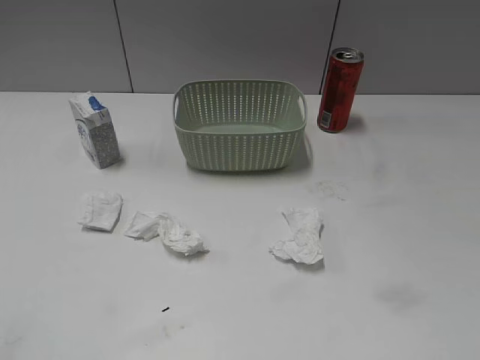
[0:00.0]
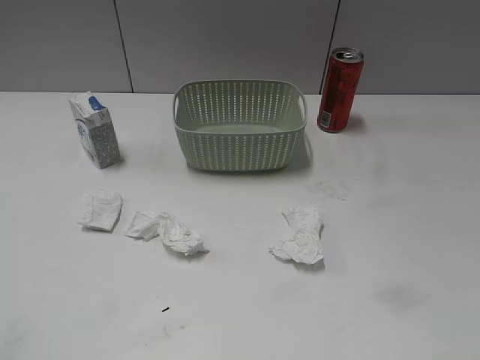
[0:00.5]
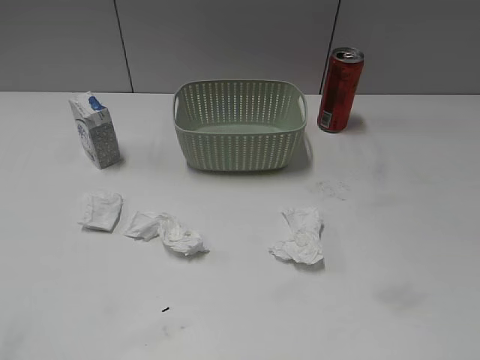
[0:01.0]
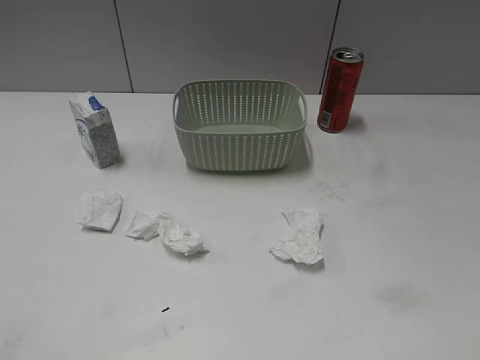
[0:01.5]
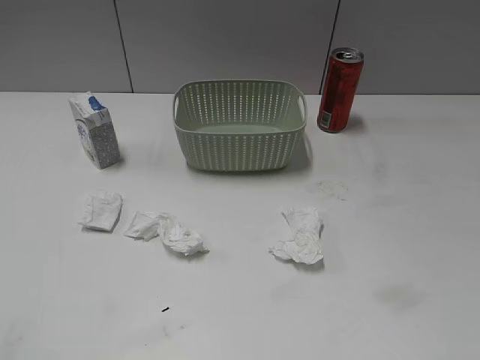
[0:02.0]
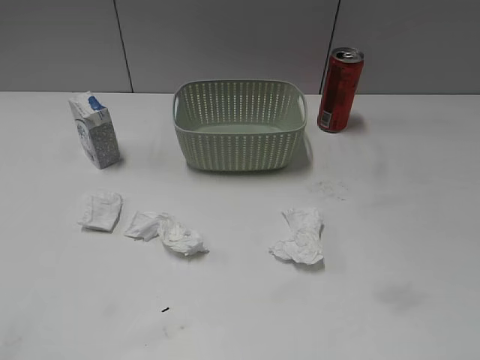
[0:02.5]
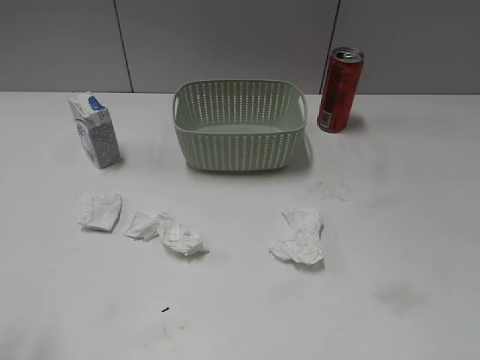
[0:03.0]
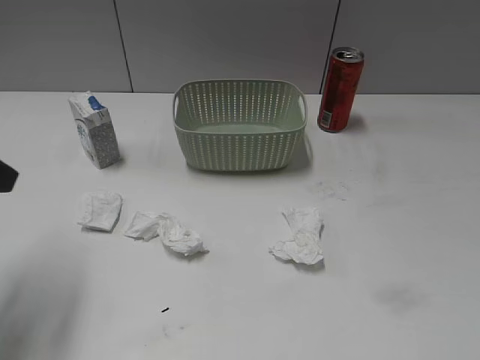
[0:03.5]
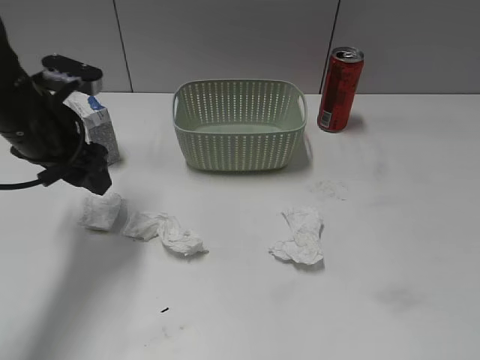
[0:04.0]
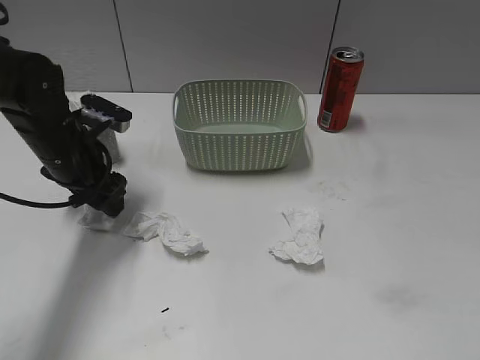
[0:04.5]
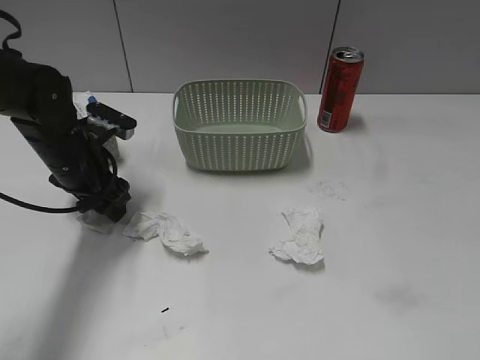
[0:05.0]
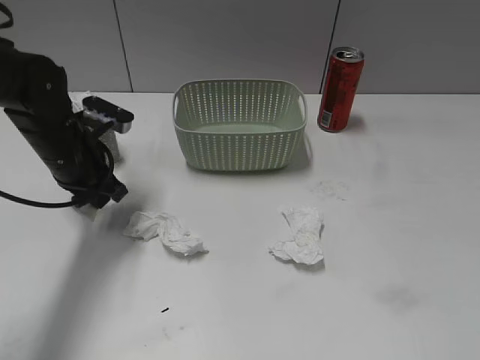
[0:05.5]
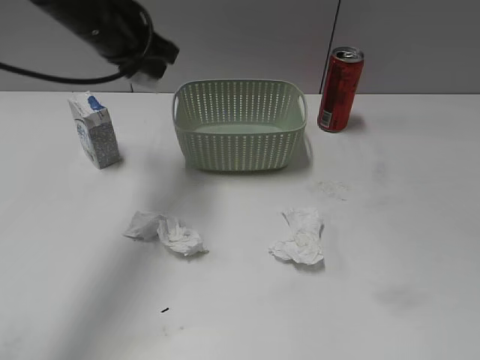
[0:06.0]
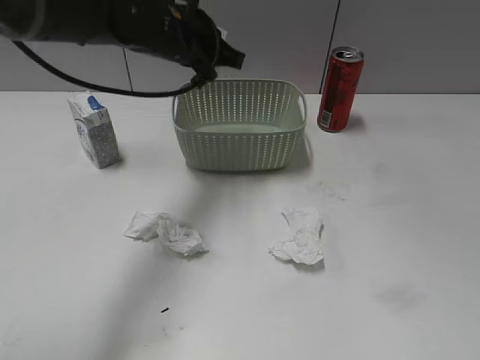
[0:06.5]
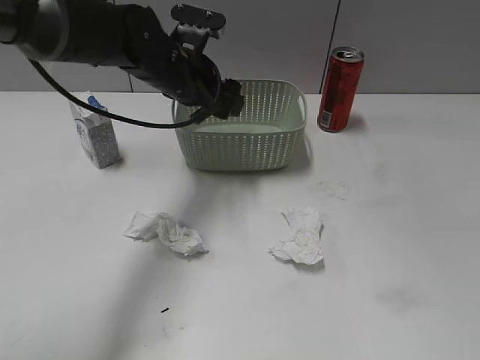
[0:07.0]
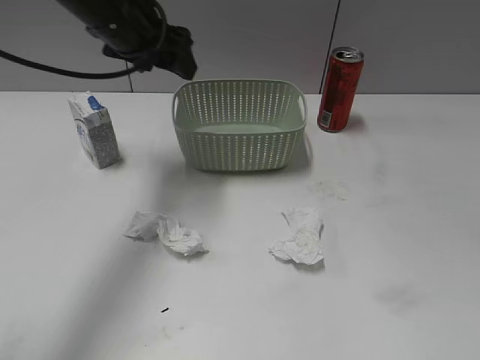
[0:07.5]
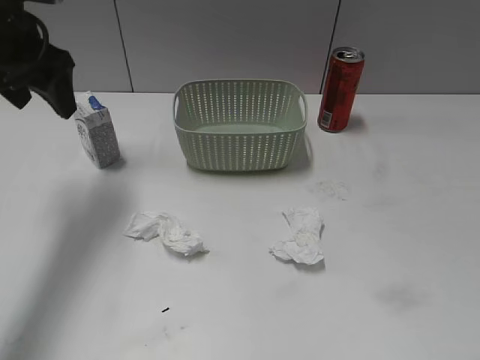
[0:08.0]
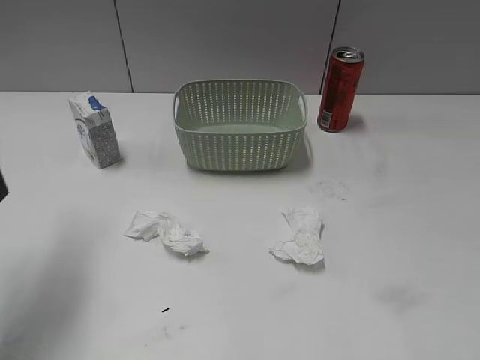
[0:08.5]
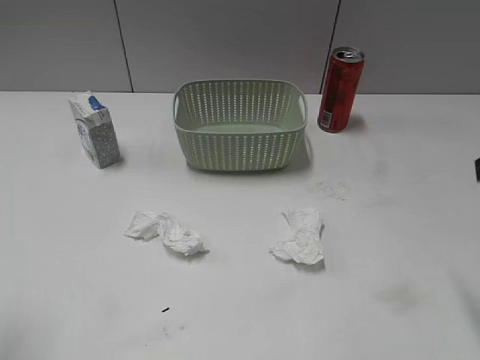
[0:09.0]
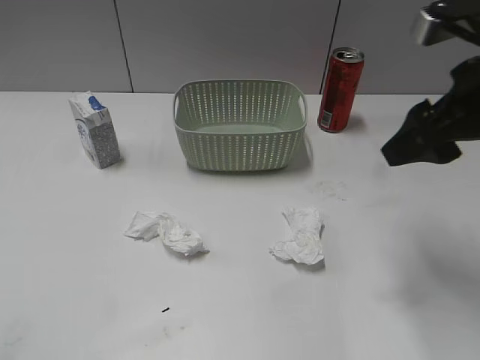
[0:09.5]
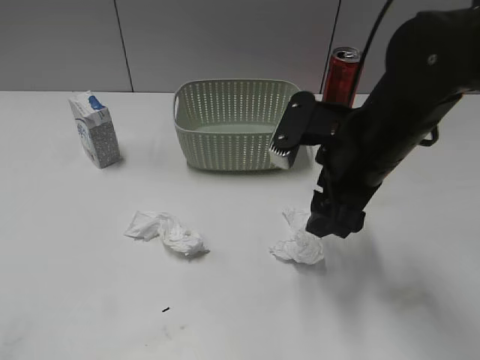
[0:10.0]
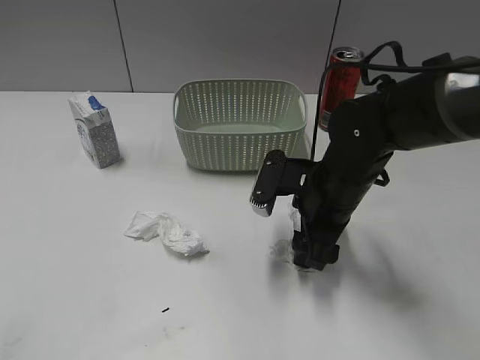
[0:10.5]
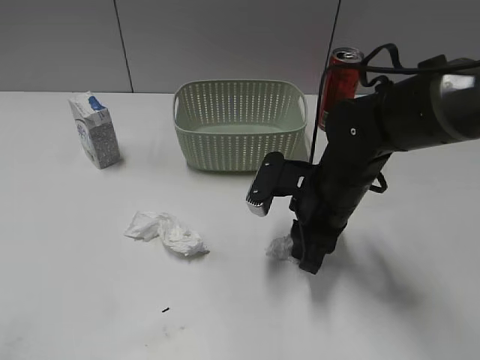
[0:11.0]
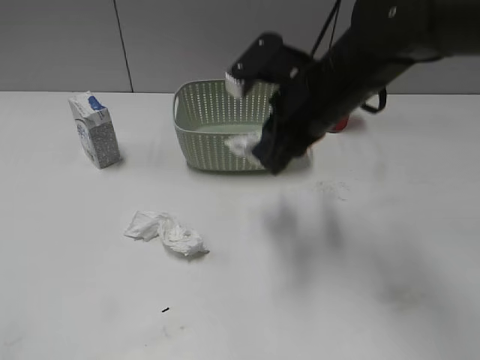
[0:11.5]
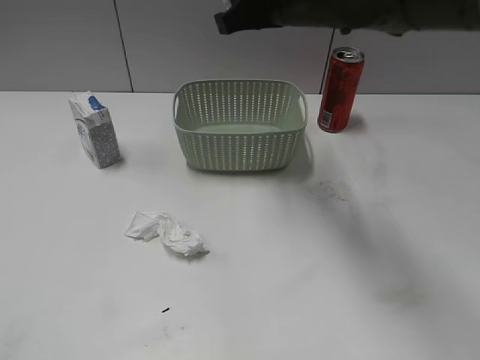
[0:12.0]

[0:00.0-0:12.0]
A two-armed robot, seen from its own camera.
Step, 0:03.5 to 0:05.0: Grasp the waste paper with left gripper.
Step, 0:05.5 to 0:07.0: Place the waste paper in the basket with left gripper.
Step, 0:07.5 to 0:11.0: Grasp the waste paper with right gripper.
0:02.0 to 0:04.0: The left gripper moves forward, approximately 30 cm.
0:04.0 to 0:06.0: The left gripper is displaced upward, to the right and forward by approximately 15 cm, and closes up.
0:06.0 to 0:08.0: The left gripper heads to the left, covering some 10 cm, and opens up.
0:08.0 to 0:10.0: The right gripper goes some 30 cm forward and to the left; the left gripper heads backward, covering about 35 cm.
0:10.0 to 0:12.0: The right gripper shifts roughly 15 cm forward, upward and to the left, and closes.

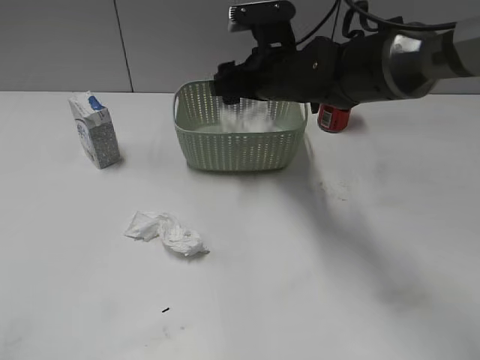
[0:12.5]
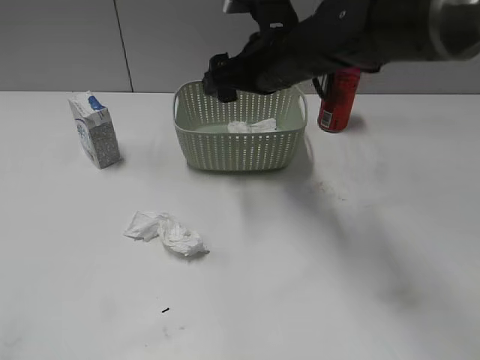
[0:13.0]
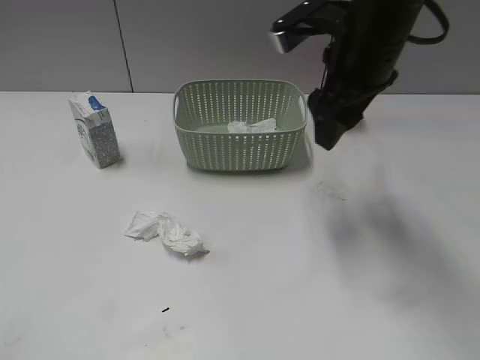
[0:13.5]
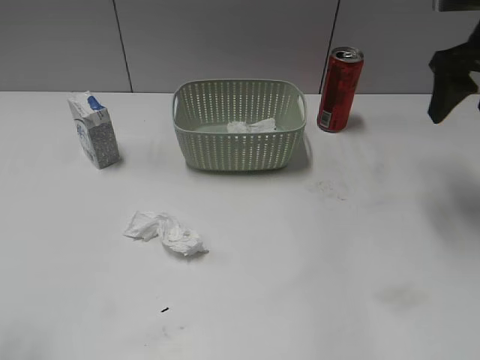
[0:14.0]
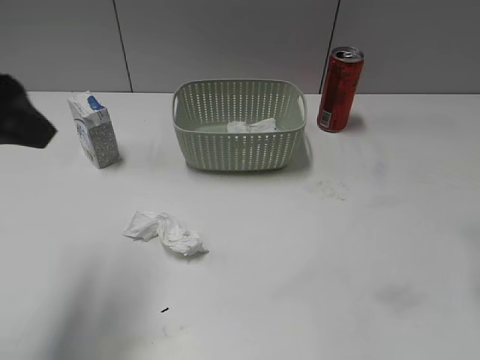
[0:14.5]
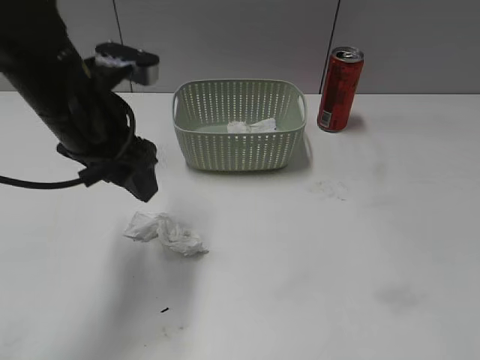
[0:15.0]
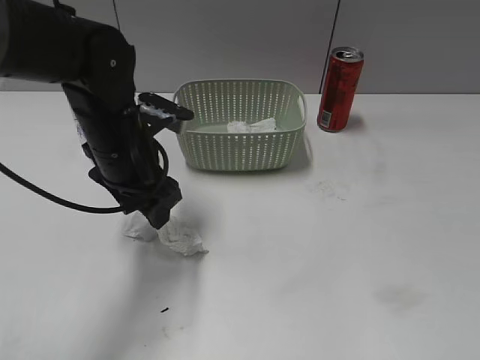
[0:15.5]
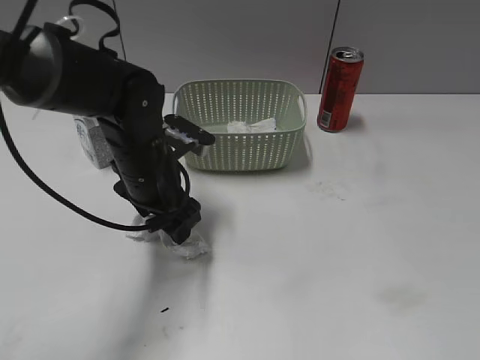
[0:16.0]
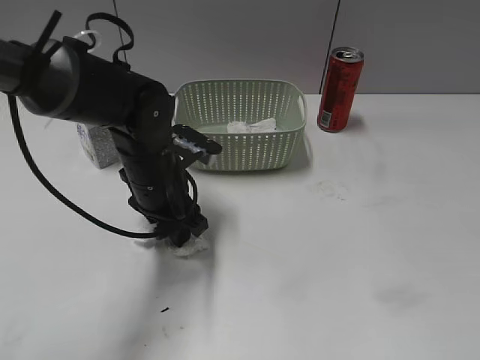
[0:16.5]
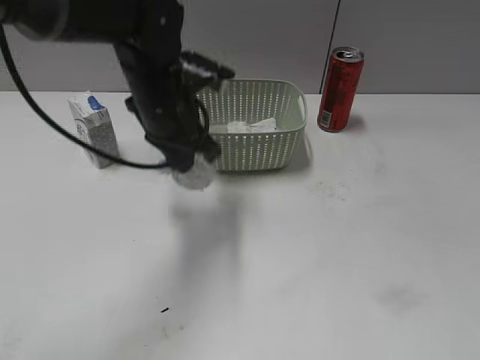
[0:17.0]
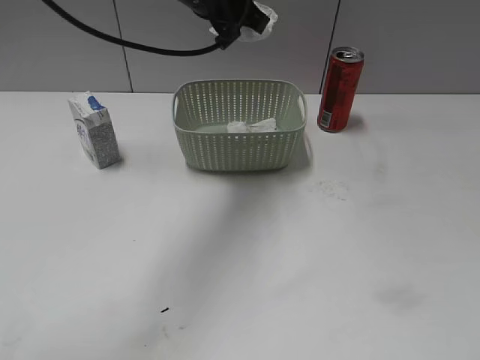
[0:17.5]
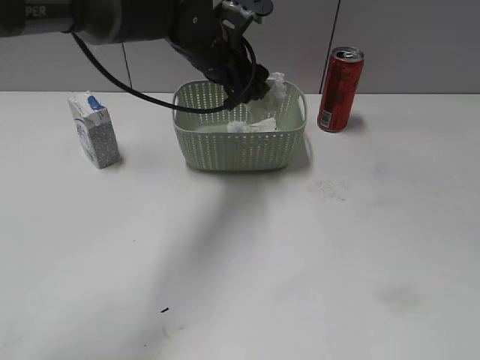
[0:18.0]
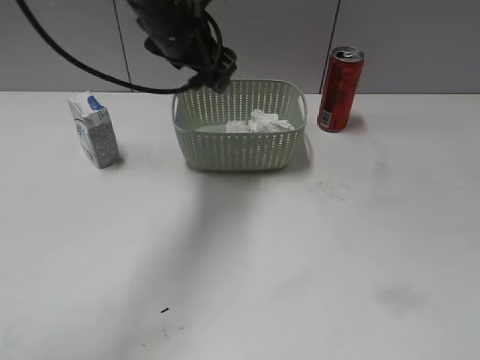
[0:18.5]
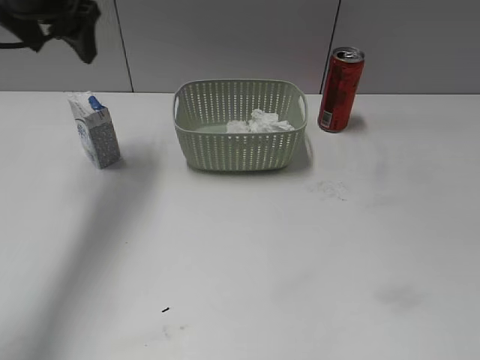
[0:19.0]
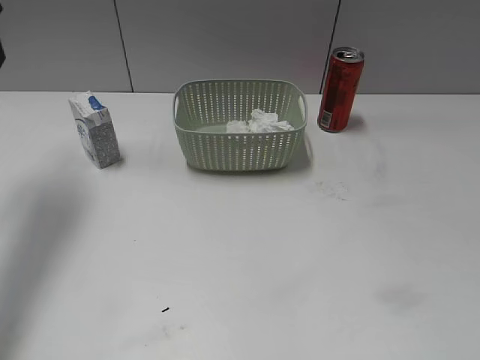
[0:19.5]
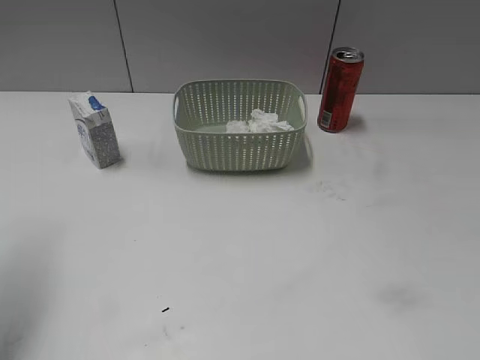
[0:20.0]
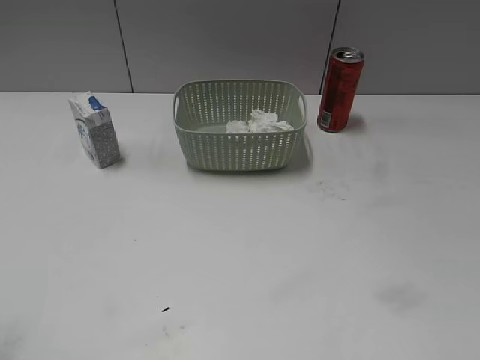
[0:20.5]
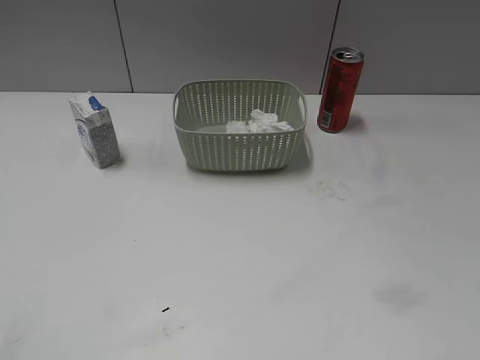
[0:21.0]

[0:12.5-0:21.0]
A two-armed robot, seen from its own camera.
Step, 0:13.0 to 0:16.5: Grasp the waste paper with left gripper.
Step, 0:17.0 to 0:18.5: Place the waste paper in the basket with left gripper.
0:12.5 to 0:14.5: The left gripper heads forward and to the right, covering about 25 cm. Meanwhile the right gripper goes roughly 30 cm to the right, backward and upward.
0:14.5 to 0:16.5: The left gripper moves downward, to the right and forward, approximately 25 cm; the right gripper heads backward, covering roughly 25 cm.
0:16.5 to 0:19.0: The left gripper moves up and down over roughly 20 cm, changing direction 2 times, and opens its fingers.
0:19.0 to 0:21.0: The left gripper is displaced backward by about 35 cm.

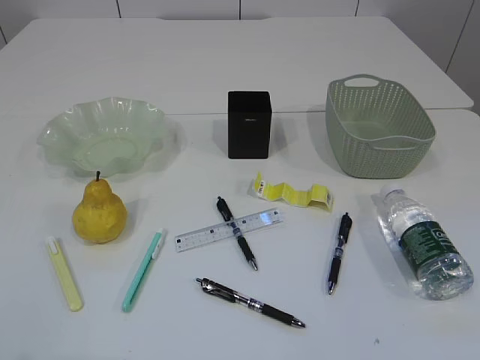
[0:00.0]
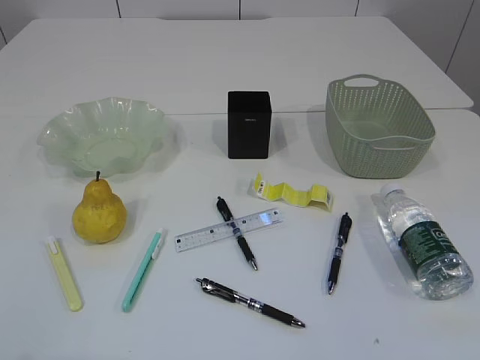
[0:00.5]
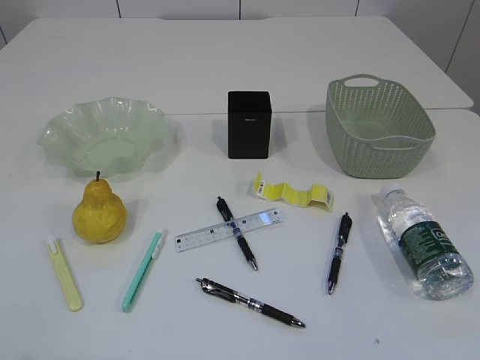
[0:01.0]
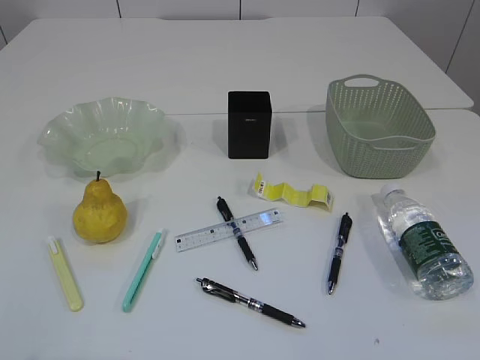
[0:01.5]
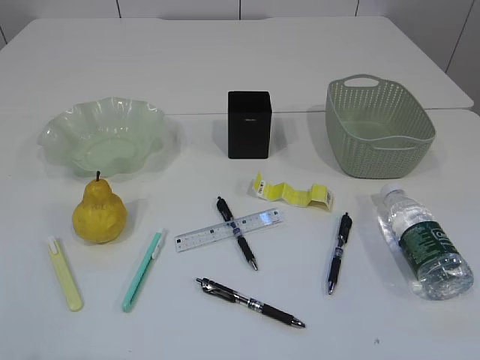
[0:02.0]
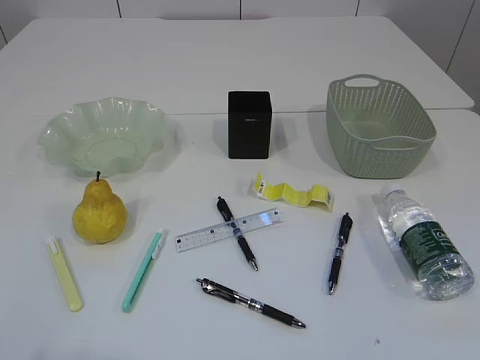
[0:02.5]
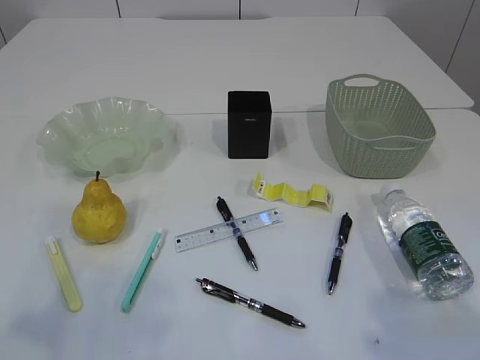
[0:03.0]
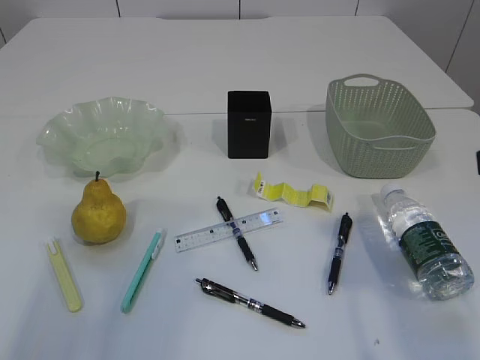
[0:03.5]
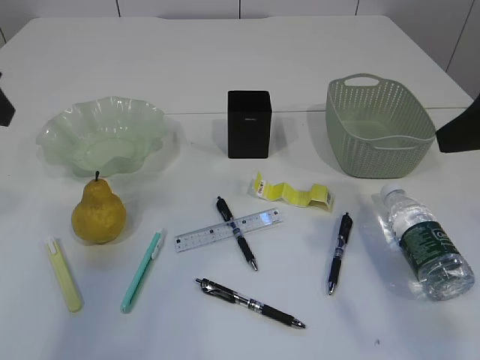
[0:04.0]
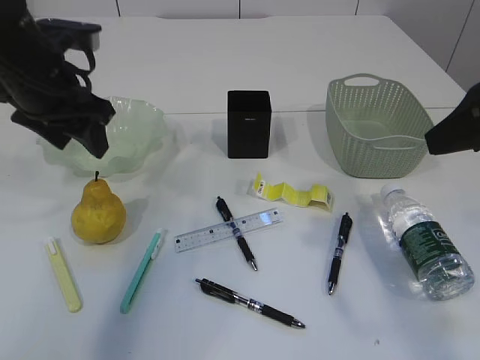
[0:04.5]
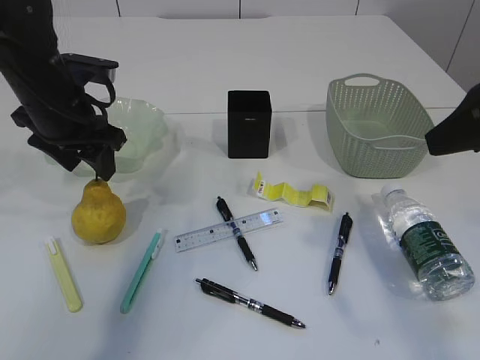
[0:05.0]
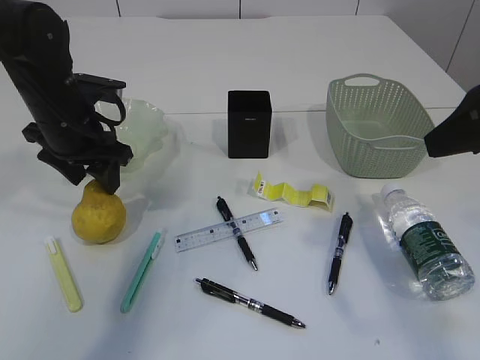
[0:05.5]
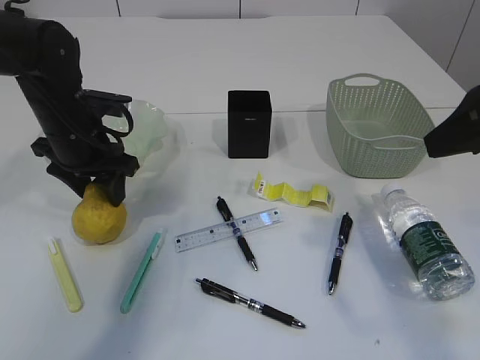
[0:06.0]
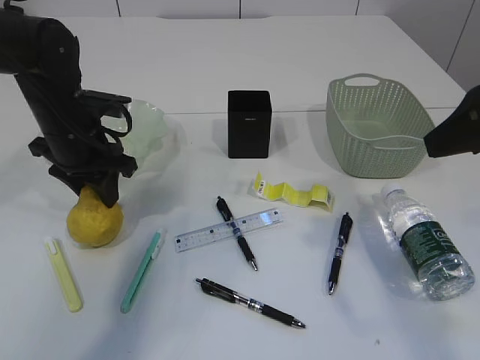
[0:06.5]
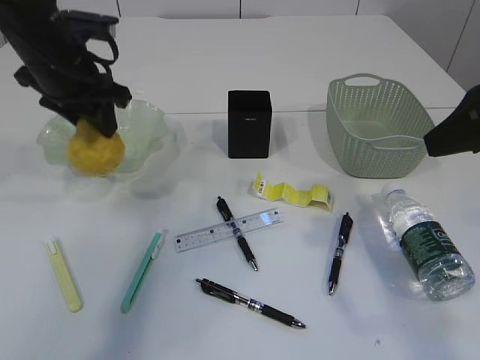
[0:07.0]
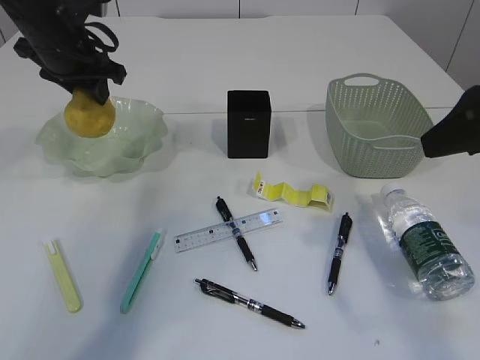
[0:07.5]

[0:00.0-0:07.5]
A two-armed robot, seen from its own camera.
0:02.0 to 0:04.0: The two grippers go approximately 25 cm forward.
0:04.0 to 0:05.5: The left gripper moves downward, forward and to the right, about 20 cm.
0:05.5 to 0:07.5: The left gripper moves forward and upward, approximately 10 cm.
